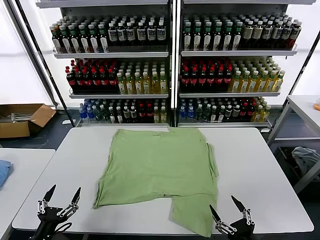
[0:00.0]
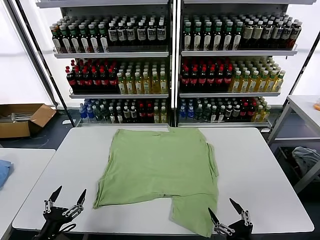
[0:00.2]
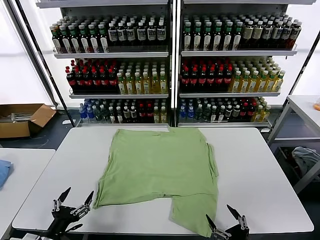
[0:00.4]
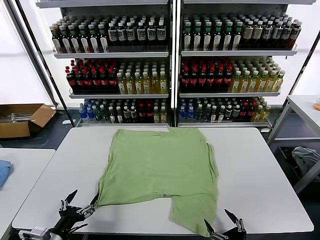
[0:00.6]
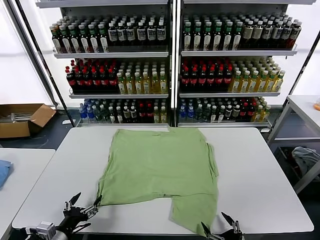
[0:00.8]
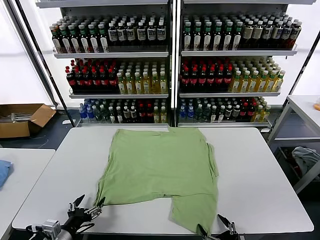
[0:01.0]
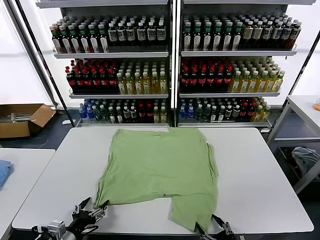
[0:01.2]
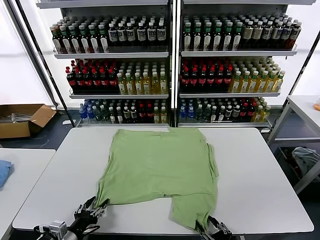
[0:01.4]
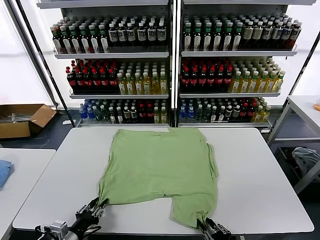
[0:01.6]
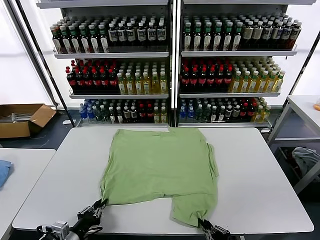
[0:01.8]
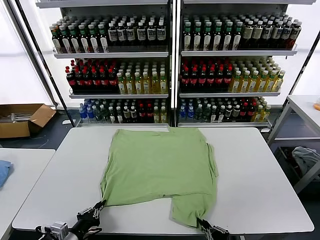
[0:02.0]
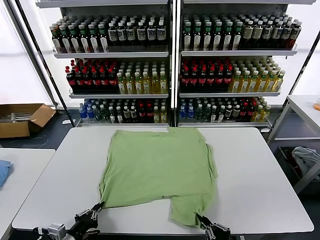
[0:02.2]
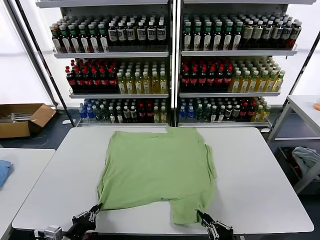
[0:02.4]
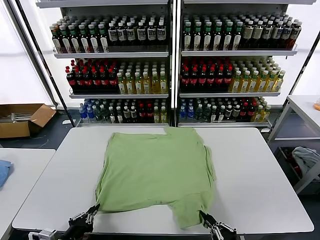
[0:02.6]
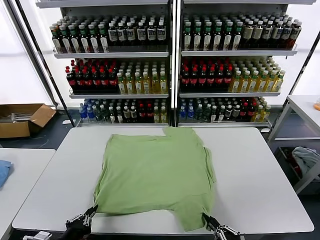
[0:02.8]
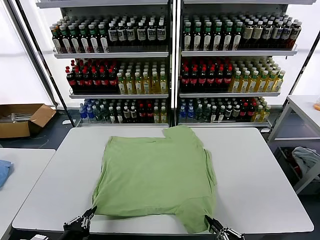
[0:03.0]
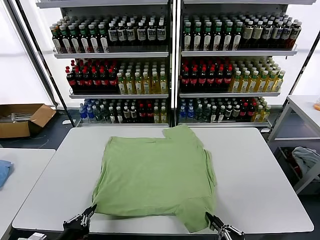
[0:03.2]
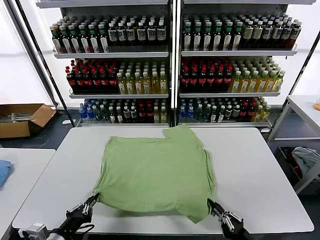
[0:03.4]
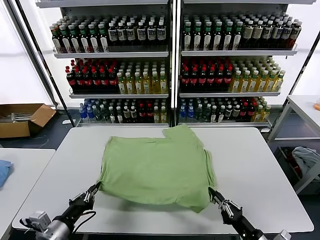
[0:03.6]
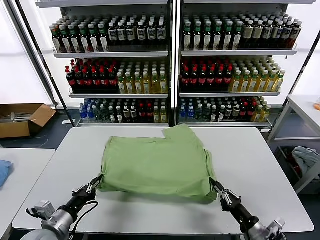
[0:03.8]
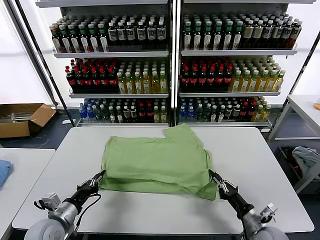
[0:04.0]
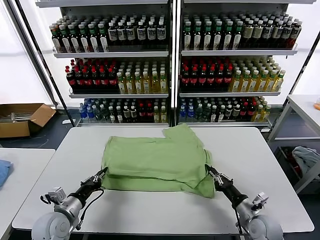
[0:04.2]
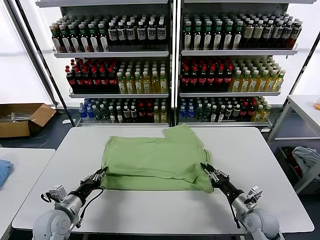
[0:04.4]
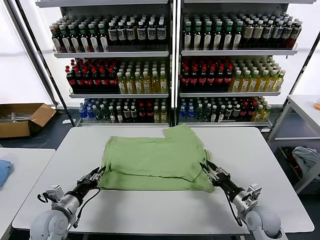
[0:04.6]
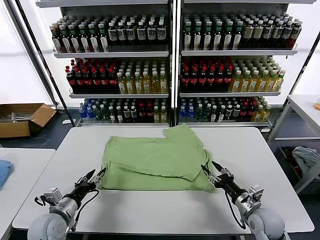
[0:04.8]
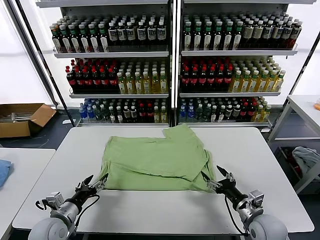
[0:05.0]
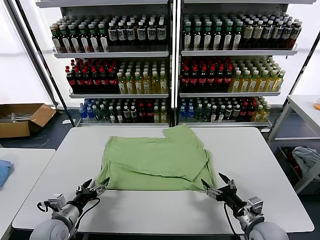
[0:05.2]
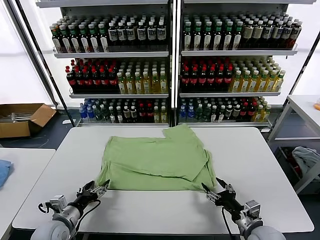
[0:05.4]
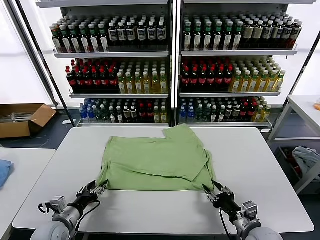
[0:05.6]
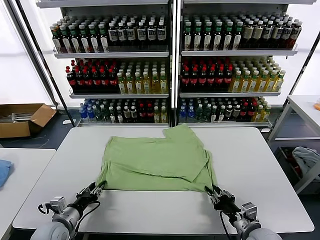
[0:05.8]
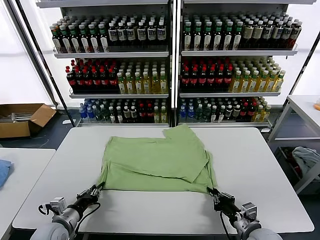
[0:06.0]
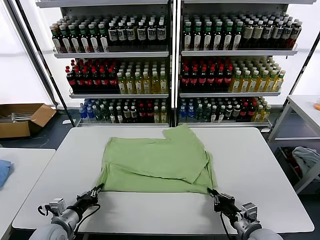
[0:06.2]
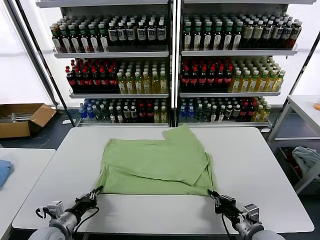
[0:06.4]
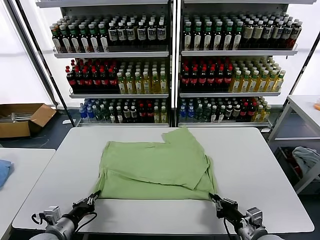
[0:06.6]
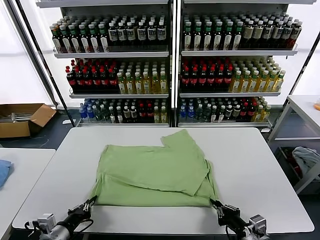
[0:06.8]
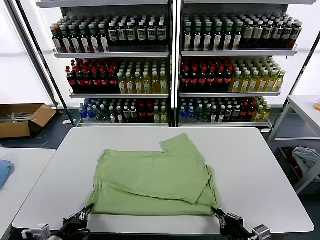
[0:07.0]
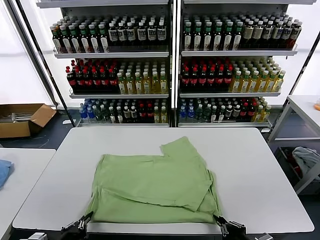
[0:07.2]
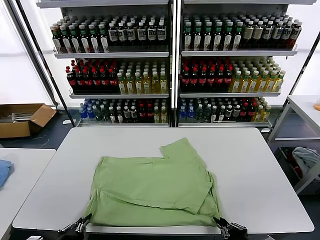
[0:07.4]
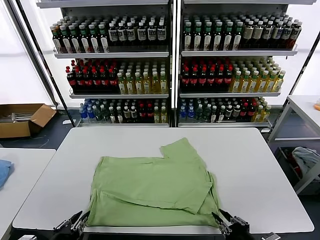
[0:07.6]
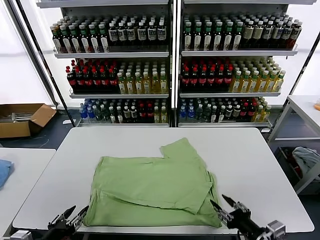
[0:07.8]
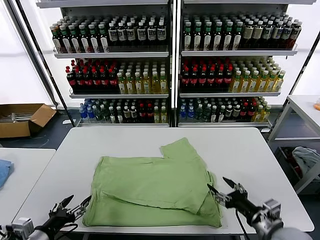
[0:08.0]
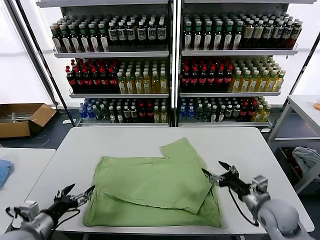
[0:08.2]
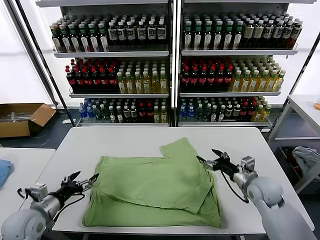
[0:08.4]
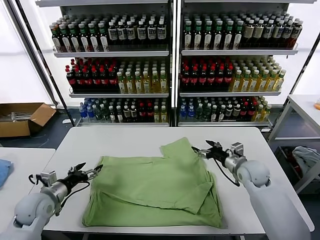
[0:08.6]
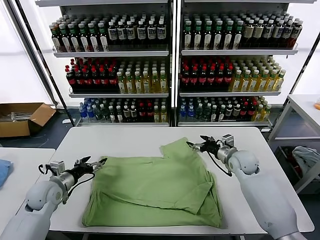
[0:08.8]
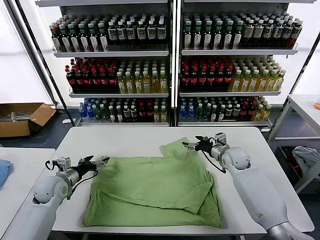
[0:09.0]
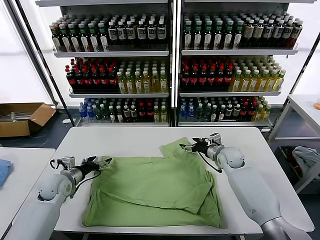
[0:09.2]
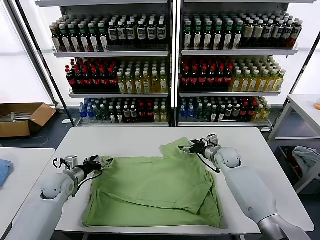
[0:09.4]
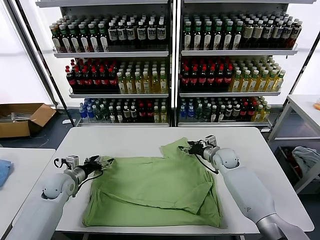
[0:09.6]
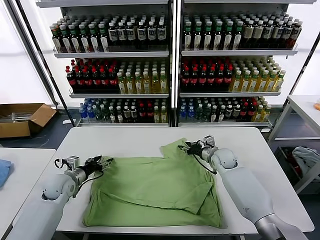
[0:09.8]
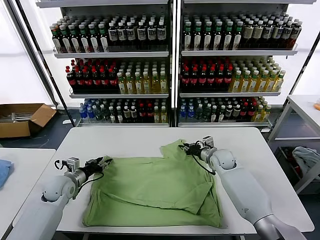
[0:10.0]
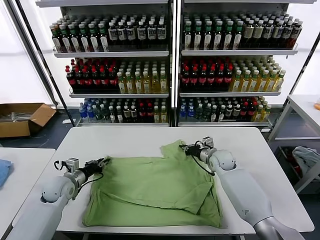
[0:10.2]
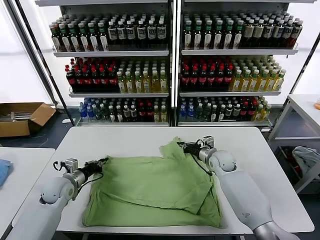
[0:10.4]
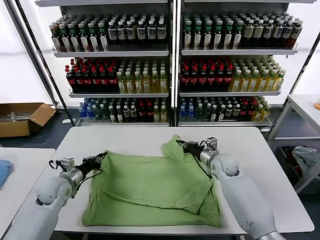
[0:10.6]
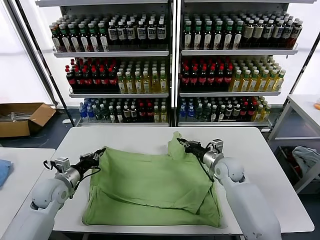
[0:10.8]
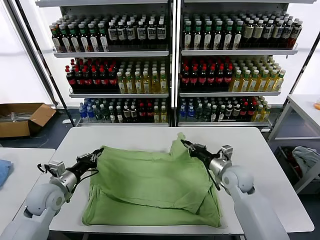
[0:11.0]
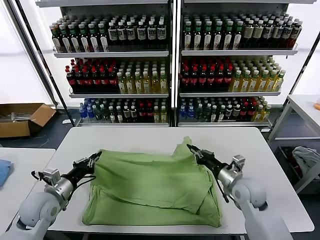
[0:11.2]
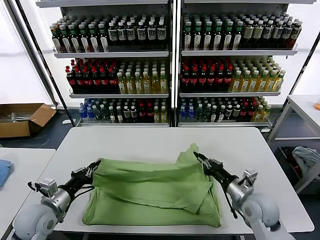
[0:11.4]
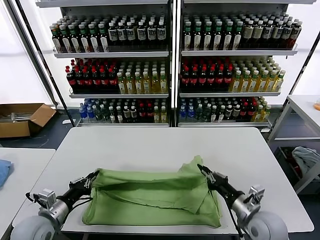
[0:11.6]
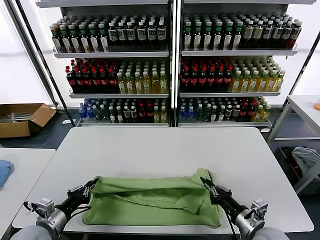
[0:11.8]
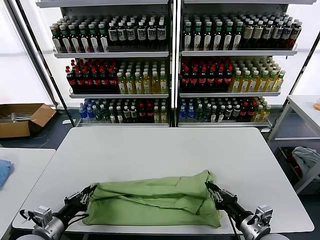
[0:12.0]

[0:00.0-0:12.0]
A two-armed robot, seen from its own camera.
Task of the whole recording: fold and organize the clothes.
Step, 0:00.0 to 0:02.0: use both grippers simultaneously to clamp the lower edge of the clothing fabric.
Step, 0:02.2 to 0:04.8: use both grippers to drag the lower edge of the fabric forward and fold it over the upper edge.
Step, 0:05.0 to 0:07.6: Drag the clothes downward with both gripper.
Step, 0:07.8 to 0:10.2: use both grippers simultaneously to clamp the upper edge of the clothing fabric.
0:01.6 to 0:03.0: The right gripper heads to the right, covering roughly 5 cm, while the left gripper shifts roughly 10 cm upward and backward, and closes its fingers.
0:03.0 to 0:04.4: Both grippers move forward, about 20 cm.
0:04.4 to 0:06.0: The left gripper opens, then closes again. Meanwhile the right gripper moves backward, about 5 cm, and opens and closes again.
0:06.0 to 0:07.6: Both grippers move backward and upward, some 15 cm.
0:07.6 to 0:09.0: Both grippers move forward, approximately 35 cm. The left gripper opens; the right gripper opens up.
0:09.0 to 0:10.4: The right gripper closes its fingers, while the left gripper closes.
0:10.4 to 0:12.0: The left gripper goes roughly 20 cm backward. Meanwhile the right gripper goes about 30 cm backward.

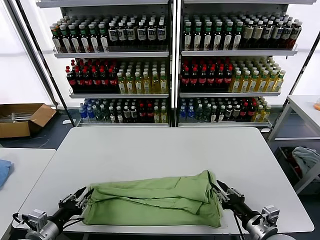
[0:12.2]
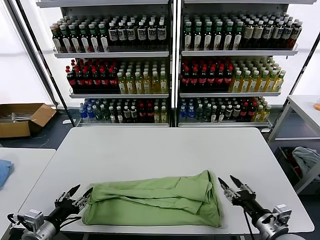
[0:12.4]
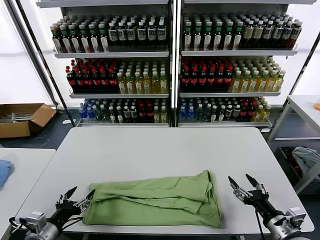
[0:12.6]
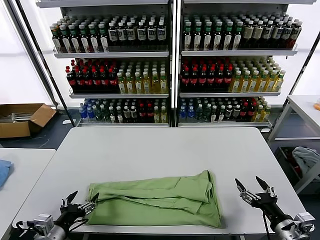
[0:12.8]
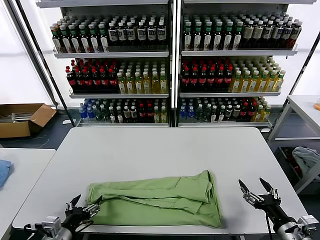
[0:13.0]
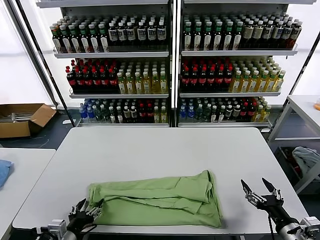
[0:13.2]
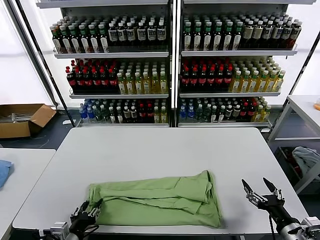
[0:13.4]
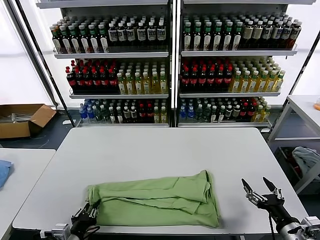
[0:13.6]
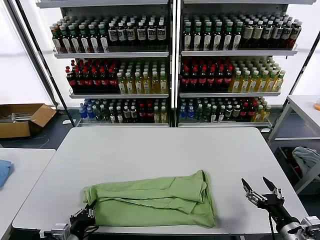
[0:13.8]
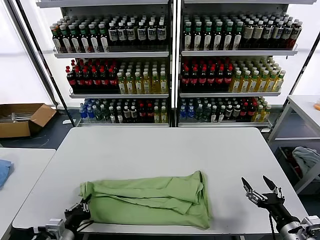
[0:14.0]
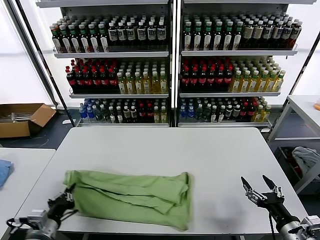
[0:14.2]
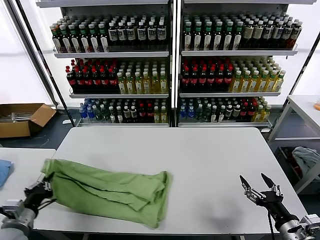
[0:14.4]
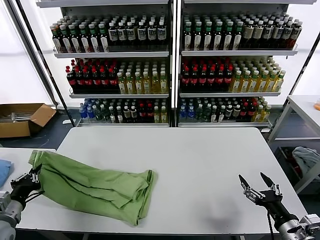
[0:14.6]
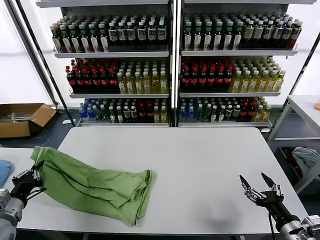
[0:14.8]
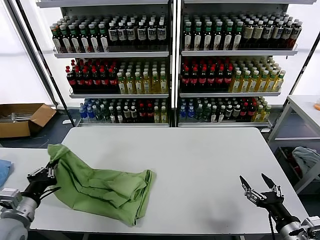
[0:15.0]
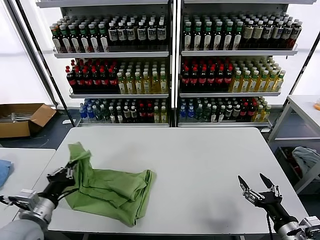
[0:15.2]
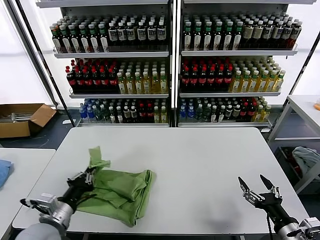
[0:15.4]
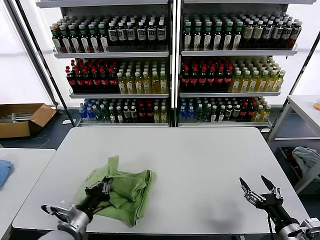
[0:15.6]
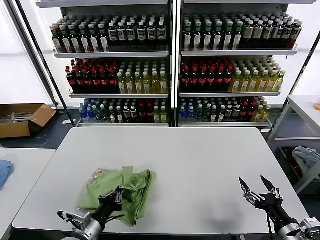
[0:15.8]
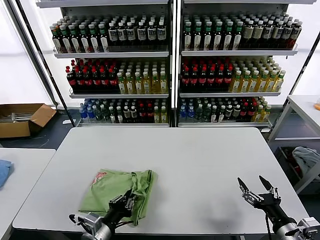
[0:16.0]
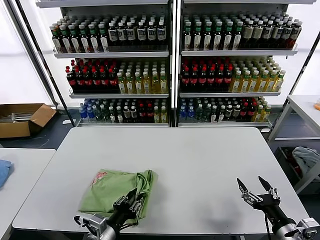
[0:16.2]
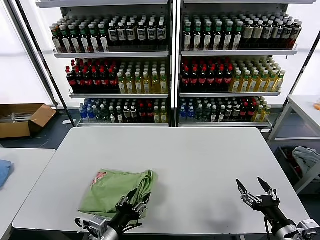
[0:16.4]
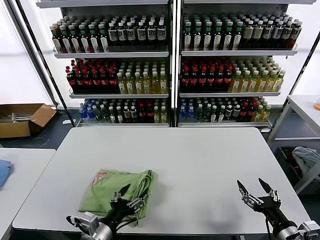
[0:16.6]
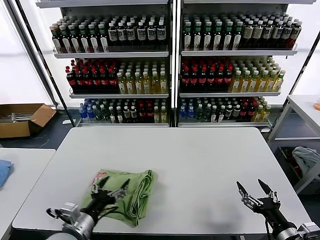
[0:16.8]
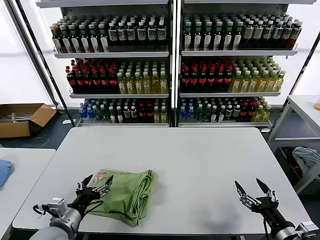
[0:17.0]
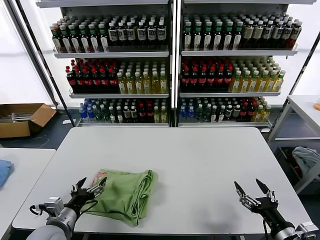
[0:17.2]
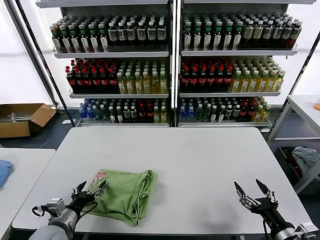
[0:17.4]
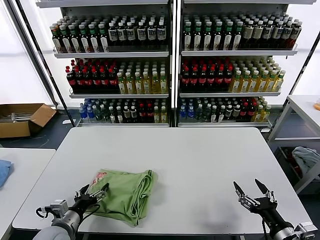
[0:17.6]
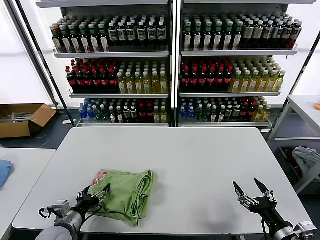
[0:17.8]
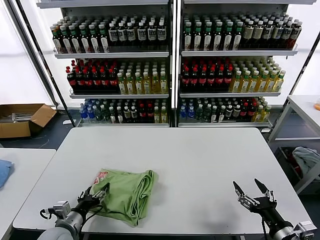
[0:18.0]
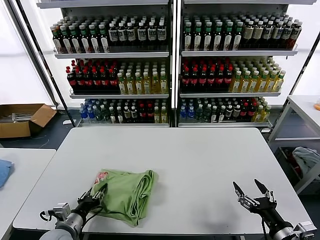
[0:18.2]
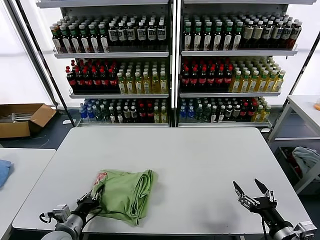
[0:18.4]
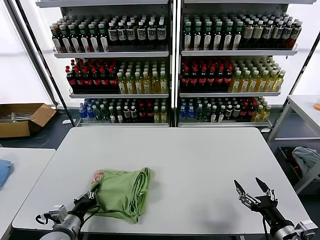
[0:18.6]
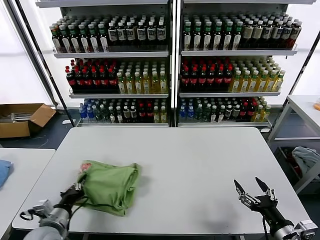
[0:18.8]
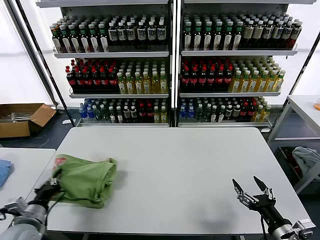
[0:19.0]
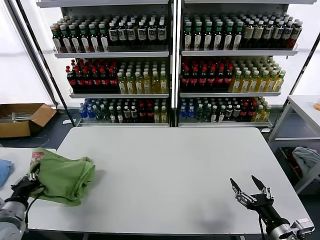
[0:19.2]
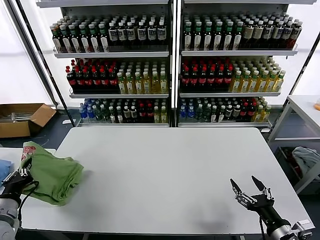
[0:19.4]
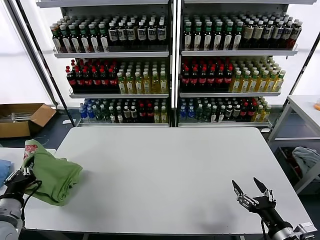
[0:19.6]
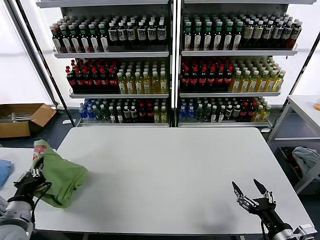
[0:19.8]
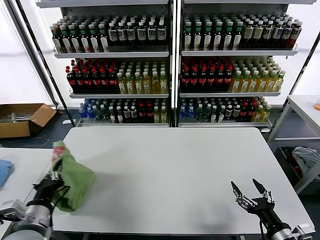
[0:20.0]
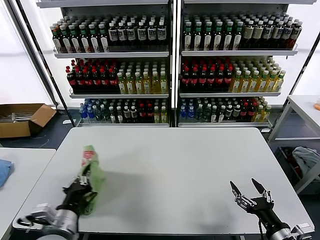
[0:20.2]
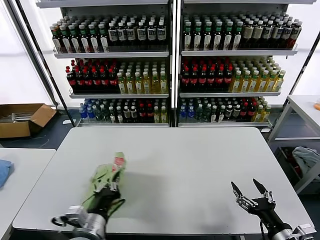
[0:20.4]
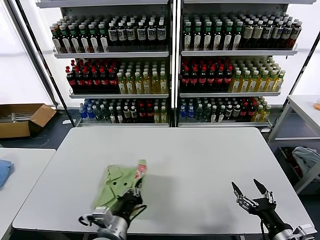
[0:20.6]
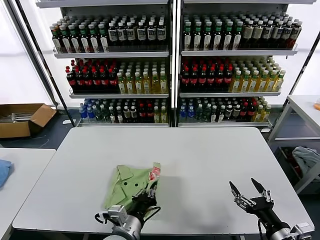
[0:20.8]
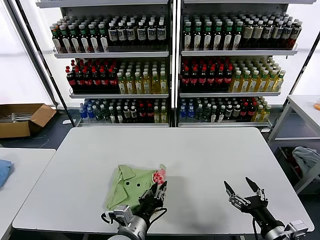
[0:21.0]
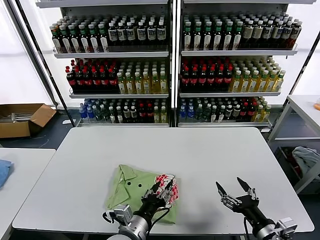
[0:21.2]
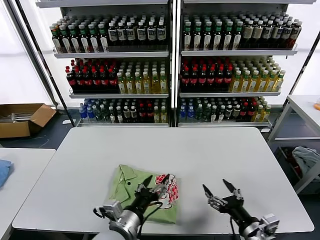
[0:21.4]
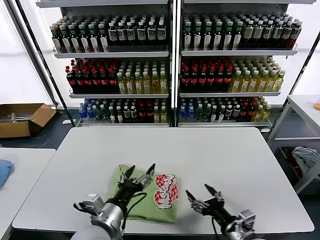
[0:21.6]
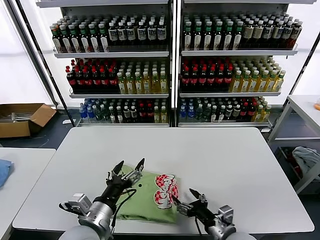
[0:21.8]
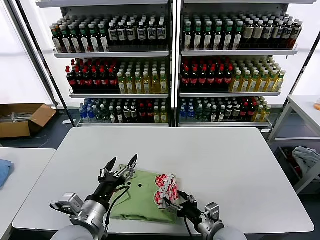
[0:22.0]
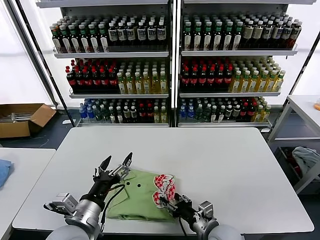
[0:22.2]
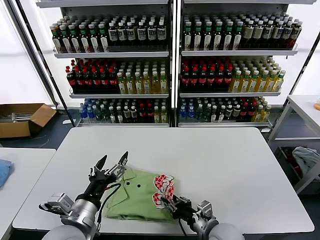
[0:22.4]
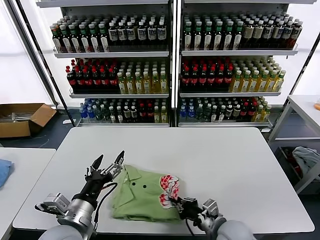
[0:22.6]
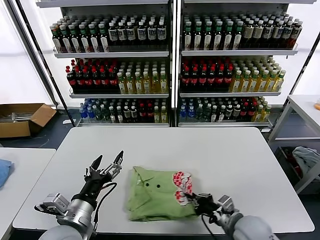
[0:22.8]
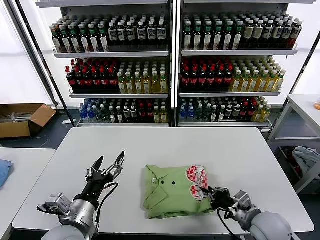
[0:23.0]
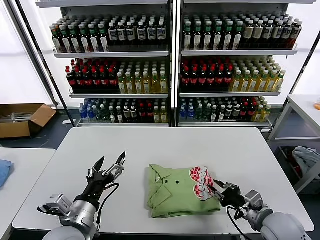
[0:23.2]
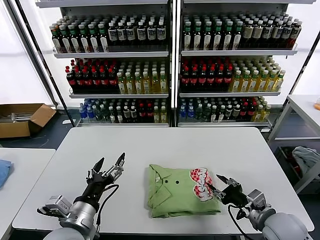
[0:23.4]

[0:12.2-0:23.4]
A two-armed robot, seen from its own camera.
Task of the whole recording: fold and organize the clothes.
Step, 0:12.4 to 0:13.8: use the left gripper to clamp the left edge of the fabric.
Step, 0:14.0 to 0:16.6: use the left gripper to drag the left edge of the fabric to the left and folds it over the right edge.
Step, 0:16.8 to 0:21.2: Flip the folded clothes over with left gripper.
0:12.2 to 0:13.8: The grippers both shift to the right by about 5 cm. The right gripper opens its fingers; the left gripper opens and closes again.
0:13.8 to 0:15.4: The left gripper goes about 10 cm upward and forward, and reaches roughly 15 cm to the left, then returns.
0:15.4 to 0:17.0: The left gripper travels to the right and back again, some 10 cm each way, and opens its fingers.
0:17.0 to 0:18.6: The left gripper shifts some 5 cm downward, and closes.
0:18.6 to 0:20.2: The left gripper goes some 10 cm upward, and moves roughly 10 cm to the left and comes back.
0:20.2 to 0:21.8: The right gripper heads to the left and forward, covering about 15 cm. Meanwhile the left gripper travels to the right by roughly 10 cm, and opens.
0:21.8 to 0:23.4: The right gripper heads to the right and upward, covering approximately 10 cm, and closes.
